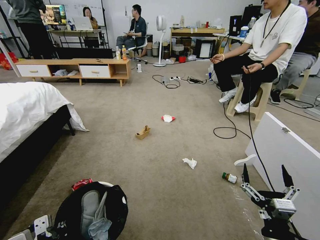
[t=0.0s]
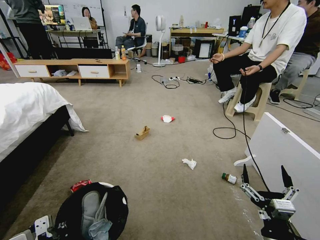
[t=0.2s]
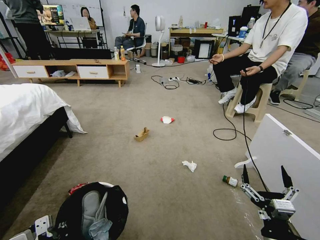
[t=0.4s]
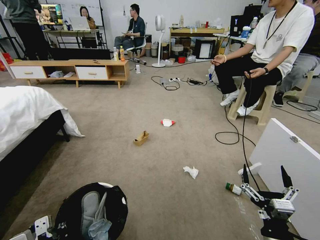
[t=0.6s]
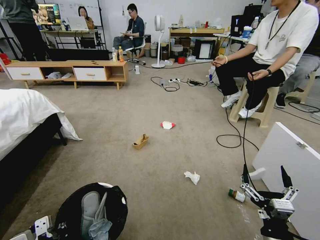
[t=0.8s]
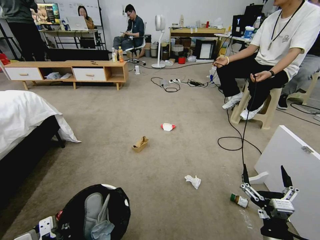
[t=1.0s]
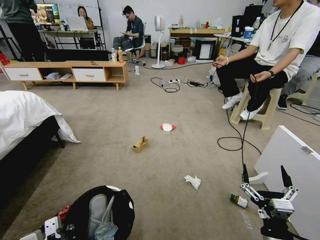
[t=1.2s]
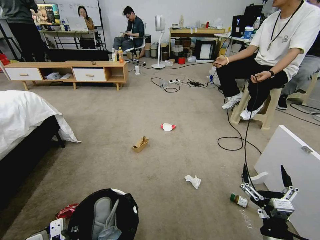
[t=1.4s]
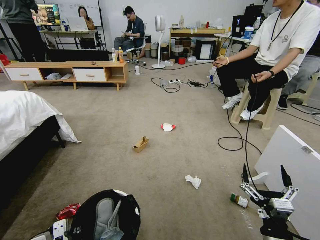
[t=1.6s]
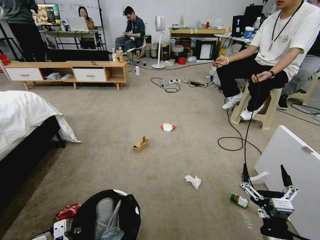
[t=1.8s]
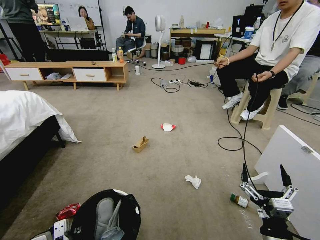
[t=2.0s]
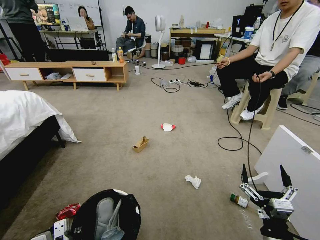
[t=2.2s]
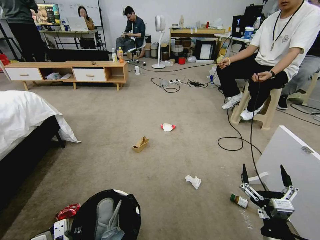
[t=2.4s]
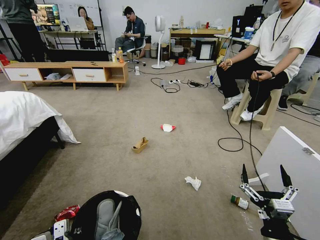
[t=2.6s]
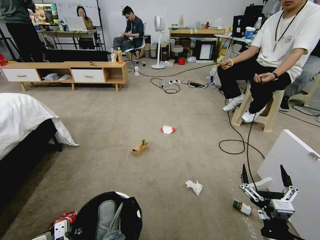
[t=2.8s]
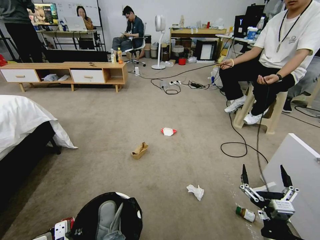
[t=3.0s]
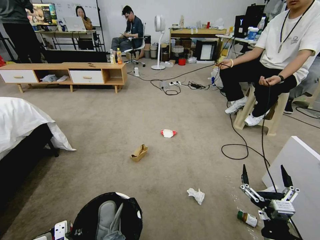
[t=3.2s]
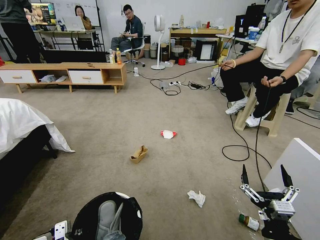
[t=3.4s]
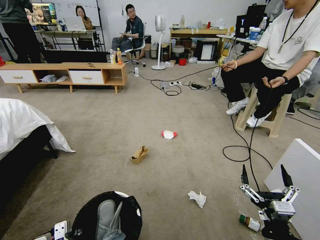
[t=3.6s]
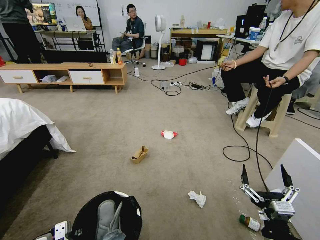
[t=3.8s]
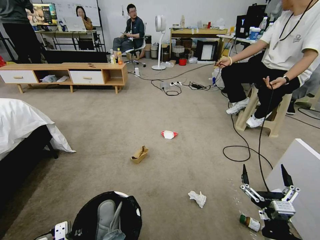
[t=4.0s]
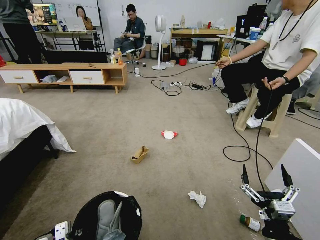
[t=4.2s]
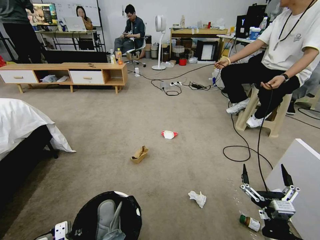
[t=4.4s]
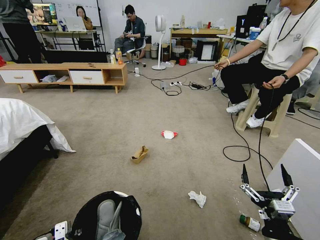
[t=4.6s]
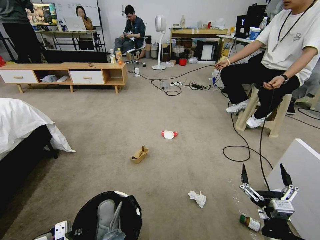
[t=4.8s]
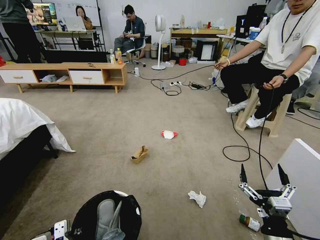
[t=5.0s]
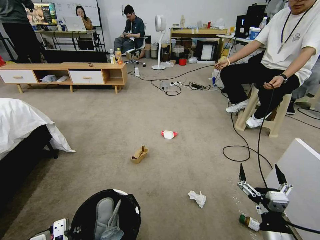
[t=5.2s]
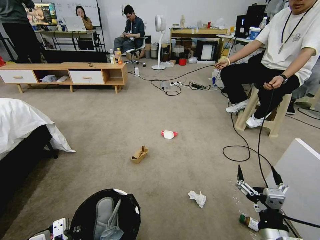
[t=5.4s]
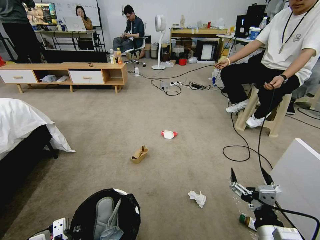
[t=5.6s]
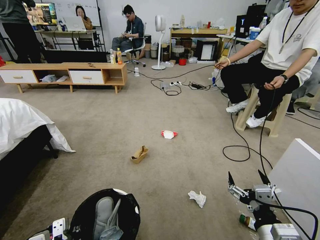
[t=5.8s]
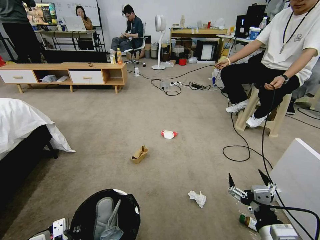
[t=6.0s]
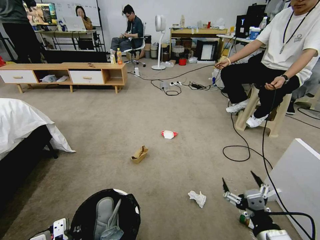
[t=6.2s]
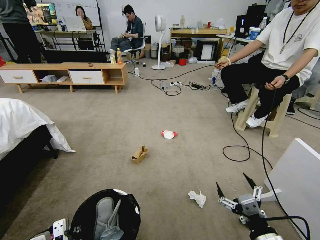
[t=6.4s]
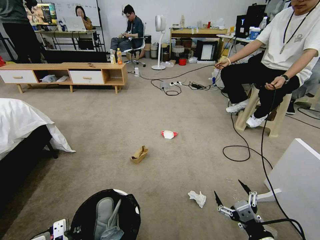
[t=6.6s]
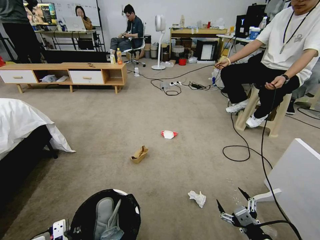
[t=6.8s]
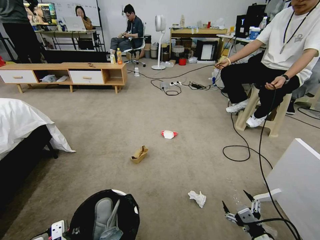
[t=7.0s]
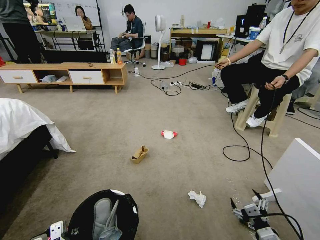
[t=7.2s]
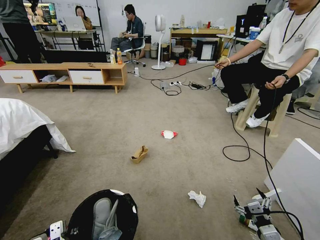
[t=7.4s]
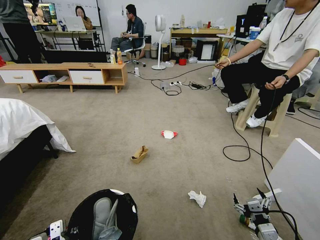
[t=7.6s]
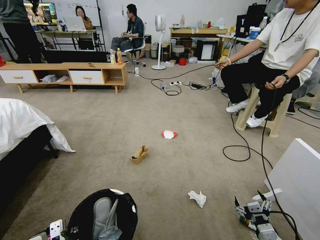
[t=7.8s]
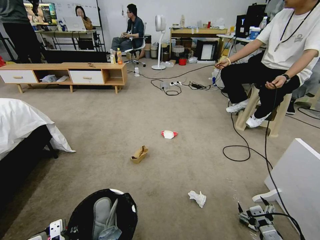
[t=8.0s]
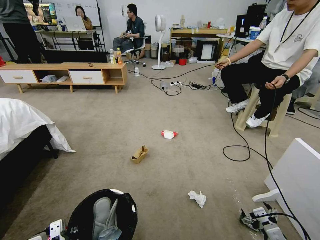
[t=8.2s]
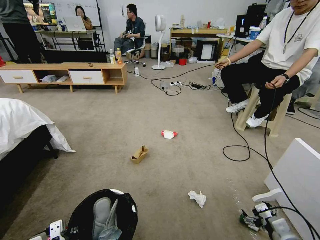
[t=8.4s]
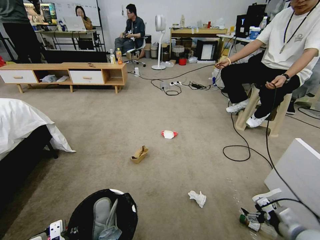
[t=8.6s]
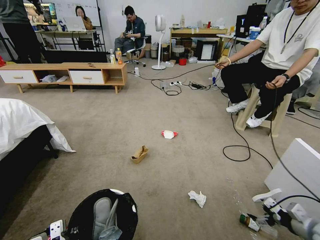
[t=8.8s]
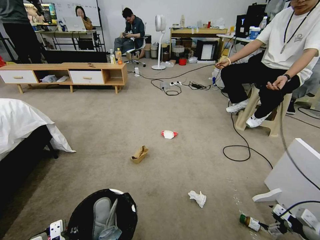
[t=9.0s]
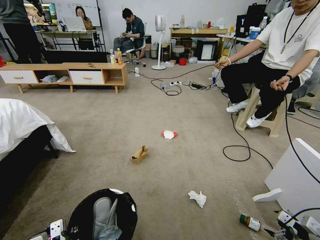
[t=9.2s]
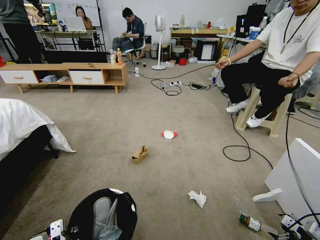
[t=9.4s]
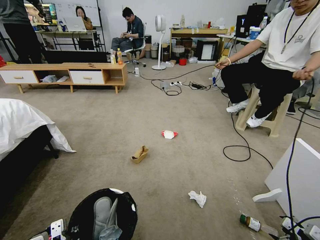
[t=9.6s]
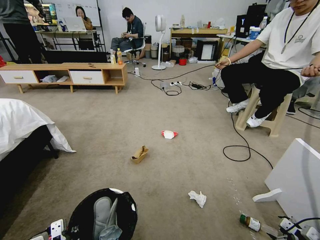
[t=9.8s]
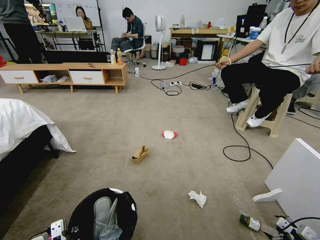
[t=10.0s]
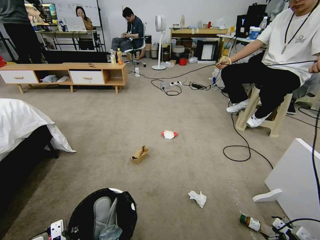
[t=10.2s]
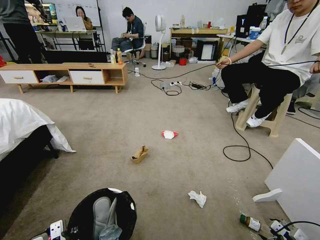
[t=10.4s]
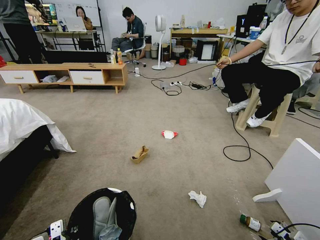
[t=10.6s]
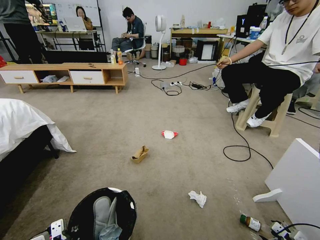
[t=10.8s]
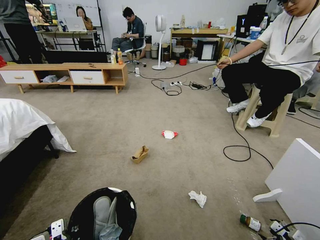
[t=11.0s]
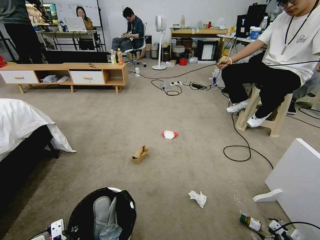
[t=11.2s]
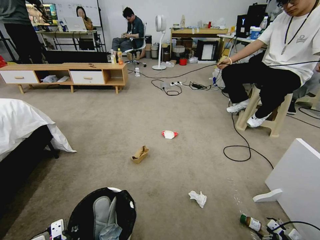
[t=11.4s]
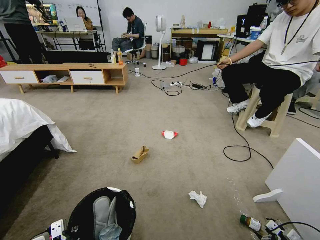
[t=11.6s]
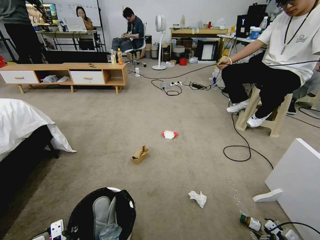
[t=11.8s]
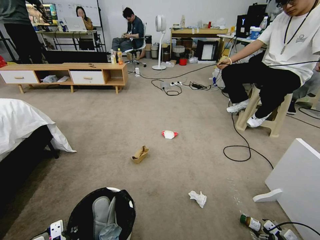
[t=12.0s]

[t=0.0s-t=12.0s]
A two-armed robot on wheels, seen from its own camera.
Task of the whole recording: Pick up the trash bin and place the garbage on the floor into it.
t=3.0s to t=4.4s: Both grippers stay put.
t=4.4s to t=6.0s: The right gripper goes about 5 cm upward.
t=6.0s to t=7.6s: The right gripper is displaced downward and to the right by approximately 15 cm.
t=7.6s to t=9.0s: The right gripper is displaced to the right by some 20 cm.
t=9.0s to t=10.4s: The right gripper heads downward, covering some 10 cm.
t=10.4s to t=12.0s: The right gripper shifts some 5 cm downward.

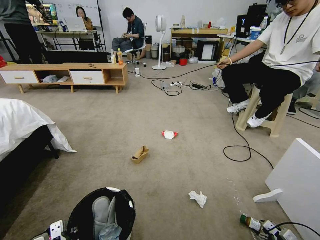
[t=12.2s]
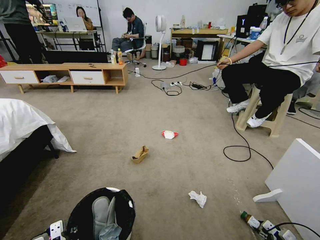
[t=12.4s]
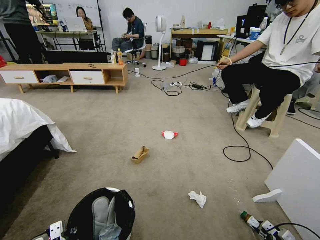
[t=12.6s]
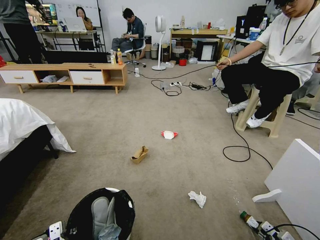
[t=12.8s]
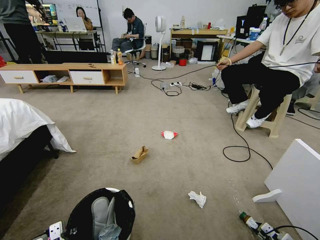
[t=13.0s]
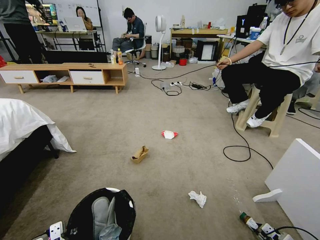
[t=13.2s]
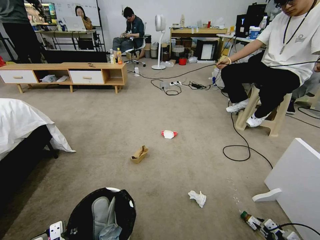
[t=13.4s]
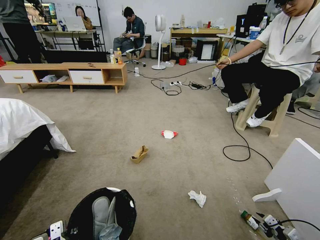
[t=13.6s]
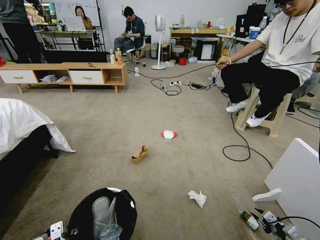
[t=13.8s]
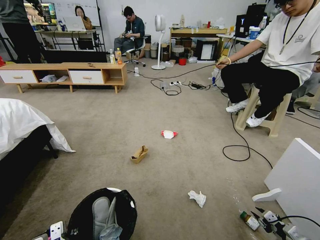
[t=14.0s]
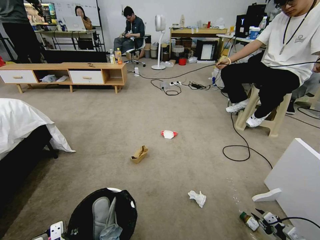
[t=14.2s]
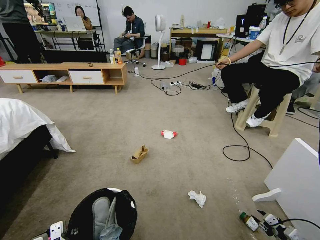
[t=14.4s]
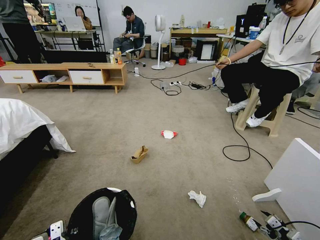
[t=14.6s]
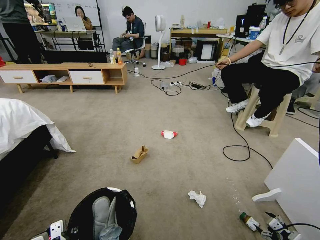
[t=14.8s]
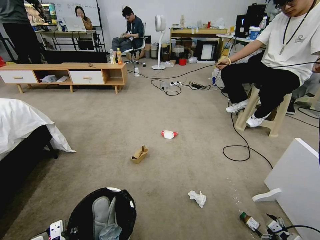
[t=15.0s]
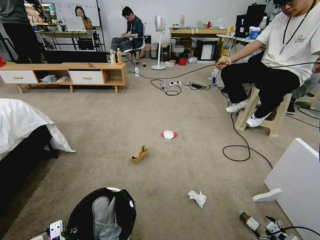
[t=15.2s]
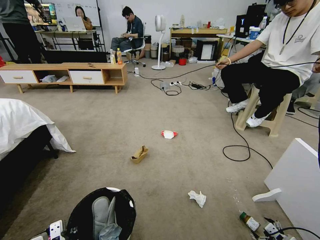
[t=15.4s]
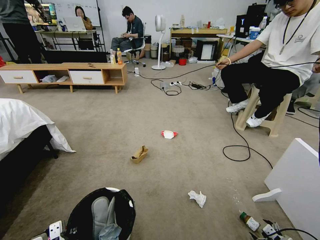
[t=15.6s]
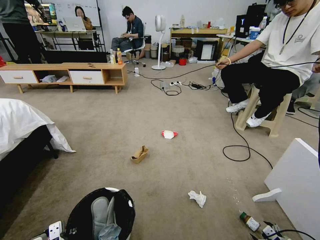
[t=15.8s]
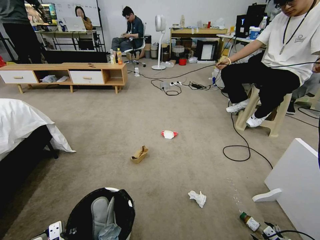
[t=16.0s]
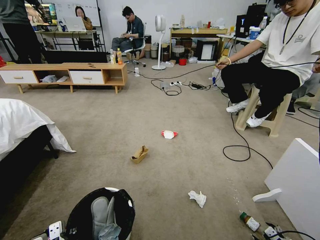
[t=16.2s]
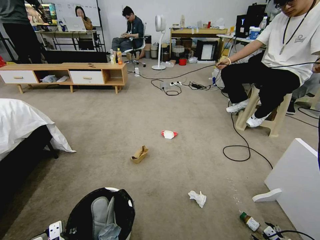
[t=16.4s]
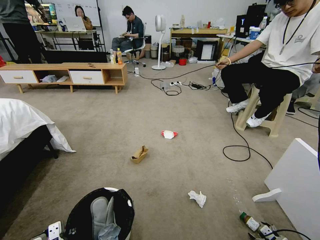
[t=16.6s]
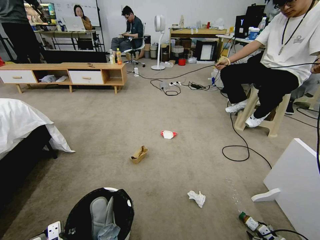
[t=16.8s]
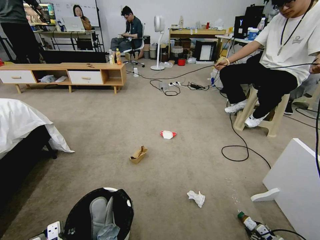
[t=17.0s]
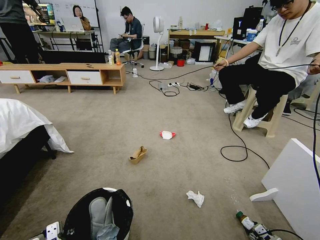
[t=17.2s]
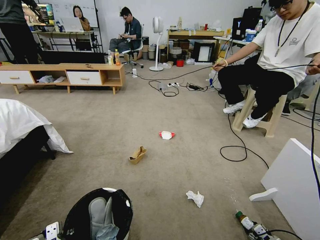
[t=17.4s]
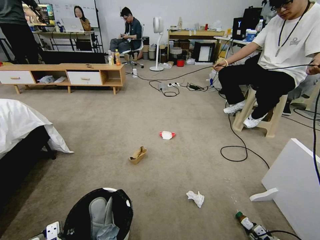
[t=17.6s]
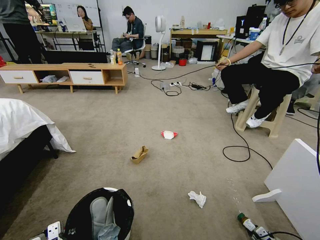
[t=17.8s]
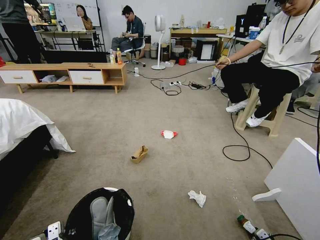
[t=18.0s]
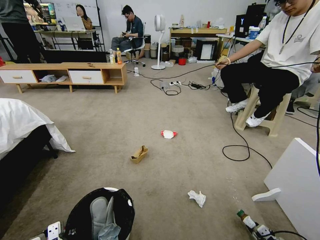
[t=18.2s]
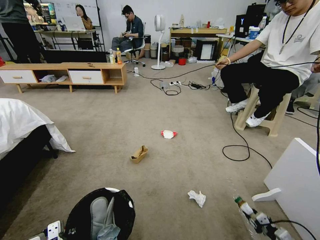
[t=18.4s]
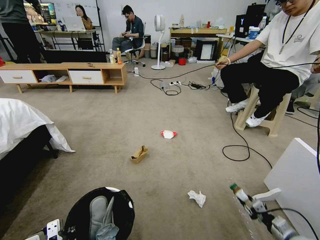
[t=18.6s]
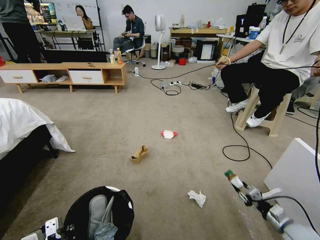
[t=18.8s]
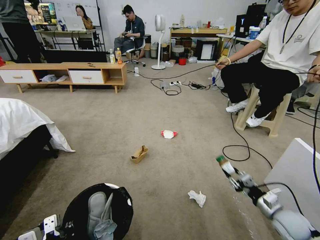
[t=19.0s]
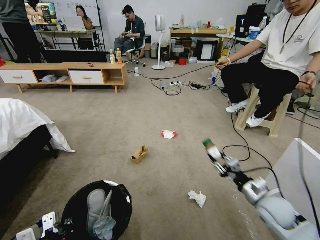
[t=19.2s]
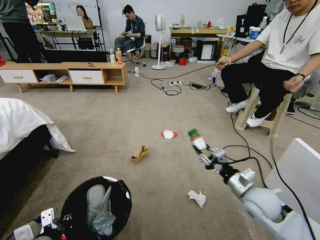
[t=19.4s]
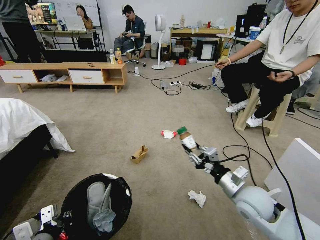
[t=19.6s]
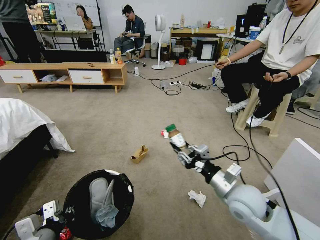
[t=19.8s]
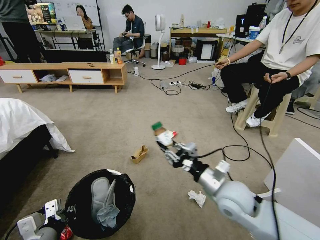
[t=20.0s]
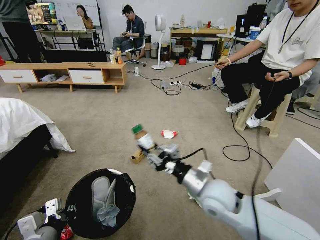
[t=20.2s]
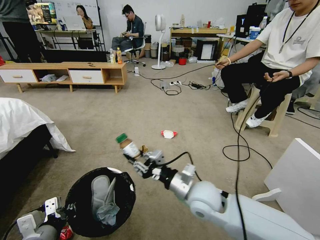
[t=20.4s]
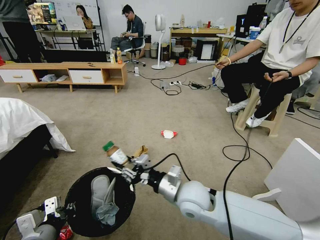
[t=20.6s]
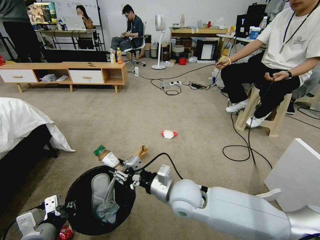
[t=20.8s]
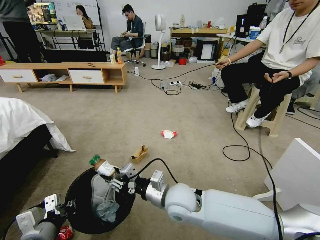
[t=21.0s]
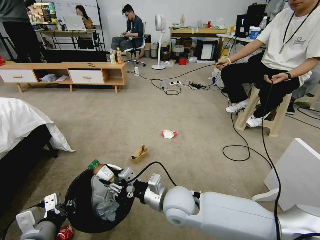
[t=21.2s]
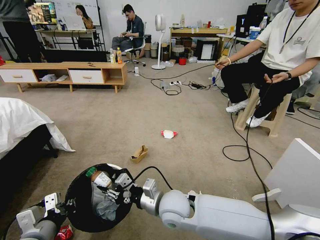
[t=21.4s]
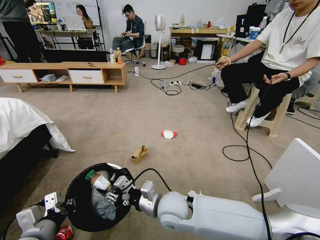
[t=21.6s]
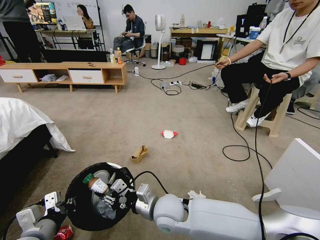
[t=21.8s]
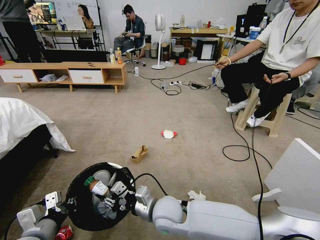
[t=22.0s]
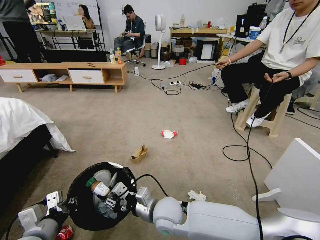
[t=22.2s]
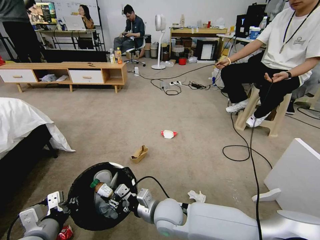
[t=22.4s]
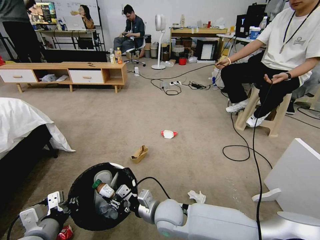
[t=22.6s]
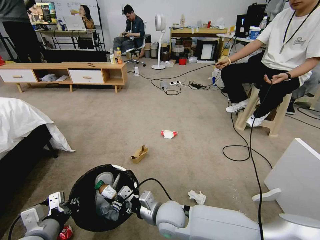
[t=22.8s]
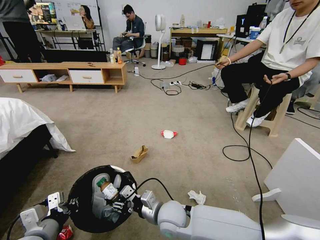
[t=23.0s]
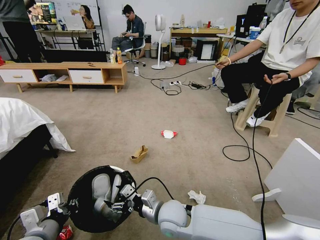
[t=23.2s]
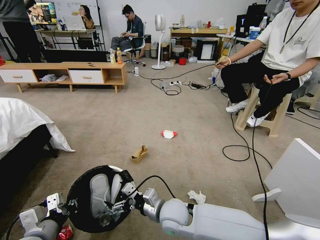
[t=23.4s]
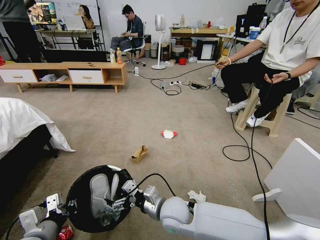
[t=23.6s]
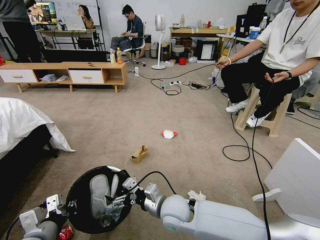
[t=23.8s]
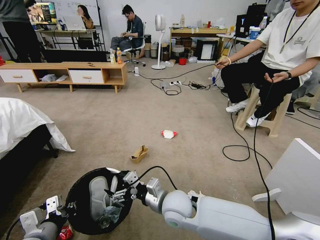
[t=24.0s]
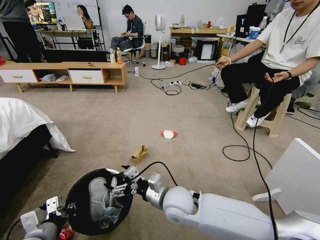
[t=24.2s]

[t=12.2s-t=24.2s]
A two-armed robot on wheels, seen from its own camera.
Task of the whole recording: Pick up the trash bin and place the garbage on the floor into it.
t=12.2s to t=13.8s: The right gripper closes.
t=13.8s to t=15.2s: The right gripper opens its fingers.
t=15.2s to t=16.6s: The right gripper is displaced downward by some 5 cm.
t=16.6s to t=18.2s: The right gripper closes up.
t=18.2s to t=19.8s: The left gripper shifts by about 5 cm, and closes up. The right gripper moves upward and to the left, approximately 40 cm.
t=19.8s to t=21.2s: The right gripper moves to the left, roughly 20 cm.
t=21.2s to t=22.6s: The right gripper travels downward by about 5 cm.
t=22.6s to t=24.2s: The right gripper goes approximately 5 cm upward, and opens up.
